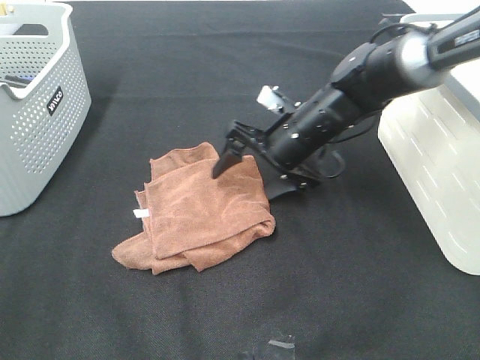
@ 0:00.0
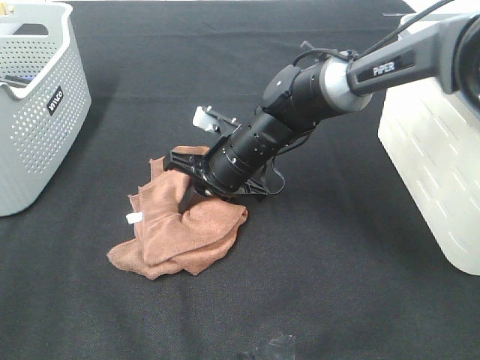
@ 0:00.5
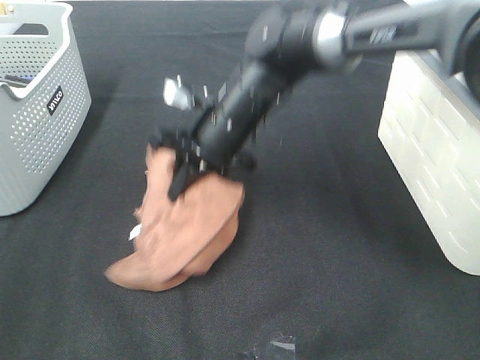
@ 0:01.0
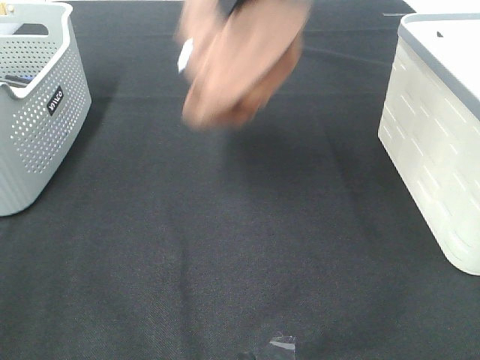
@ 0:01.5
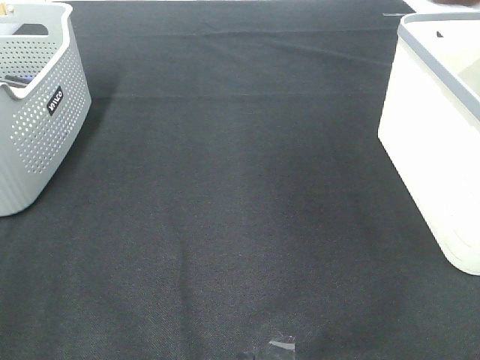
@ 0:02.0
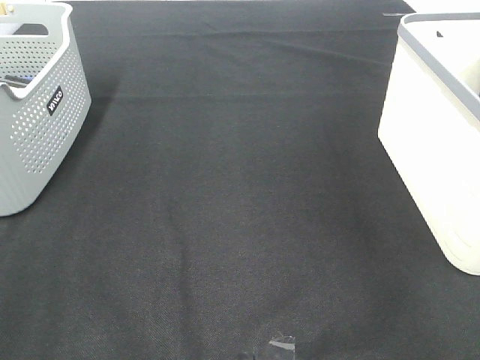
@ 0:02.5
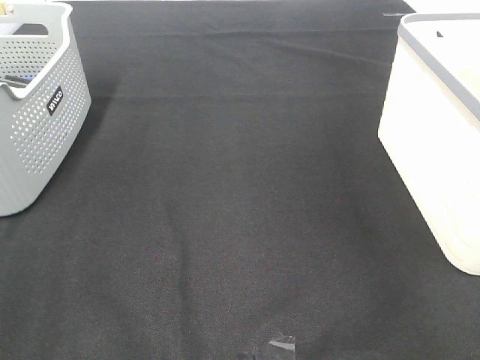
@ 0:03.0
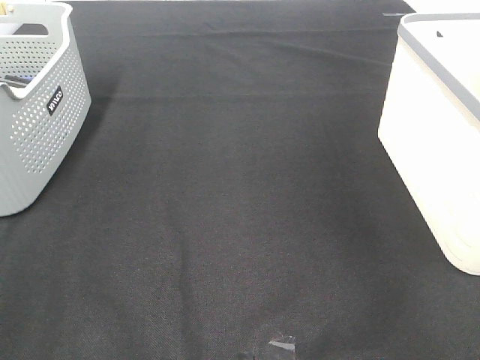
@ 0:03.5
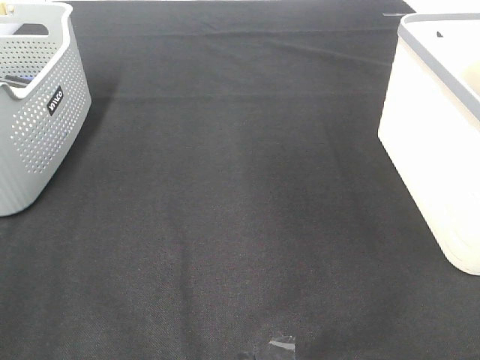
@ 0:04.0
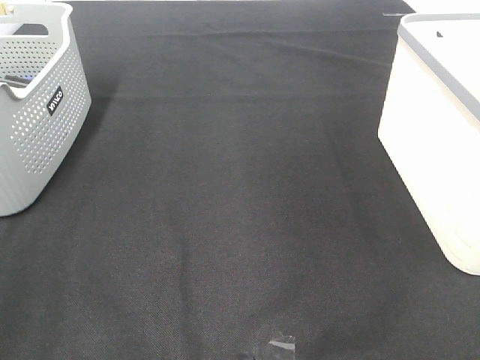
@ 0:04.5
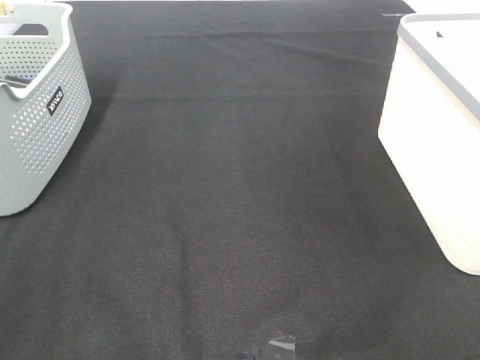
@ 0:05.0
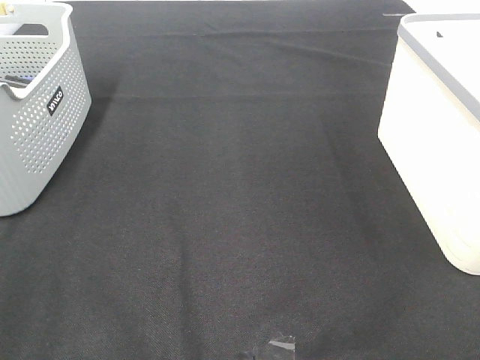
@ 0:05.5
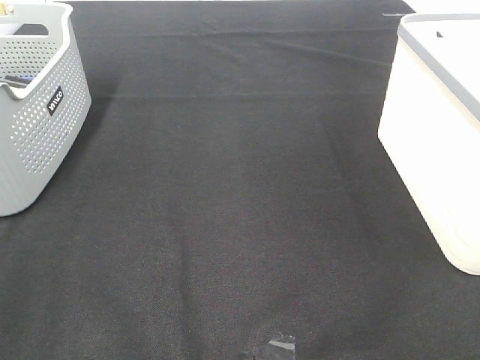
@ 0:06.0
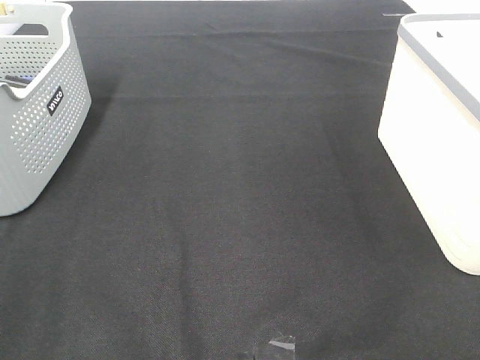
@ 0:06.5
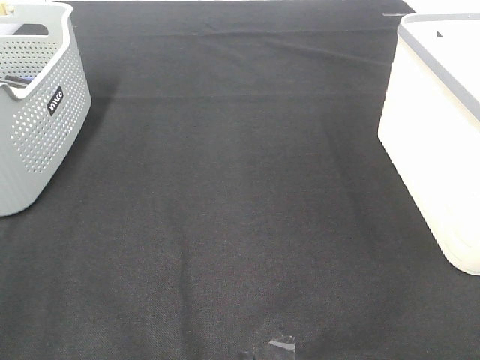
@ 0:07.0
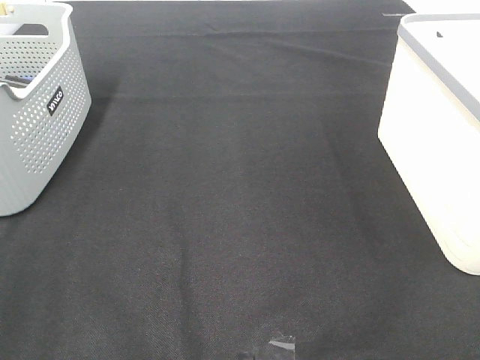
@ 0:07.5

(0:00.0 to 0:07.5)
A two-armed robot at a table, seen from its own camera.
Step, 0:01.0 - 0:03.0: Right hand: place the brown towel in right basket.
0:00.0 - 0:02.0: The right gripper is displaced upward and to the right by approximately 40 cm, and closes its fingers.

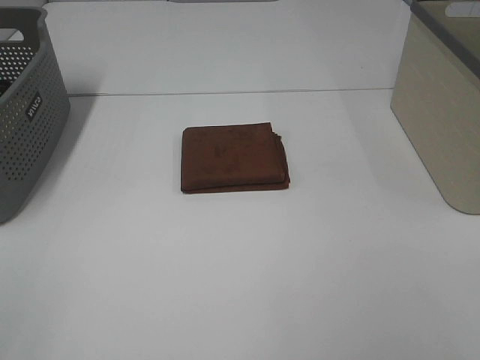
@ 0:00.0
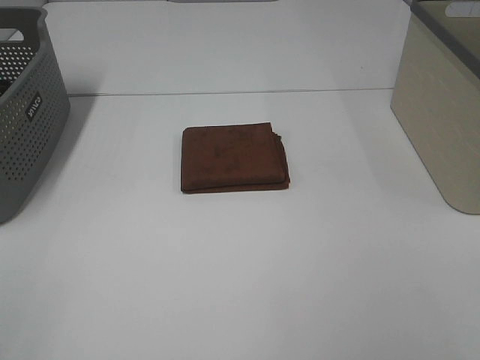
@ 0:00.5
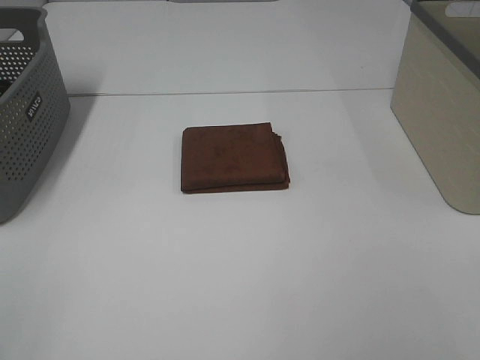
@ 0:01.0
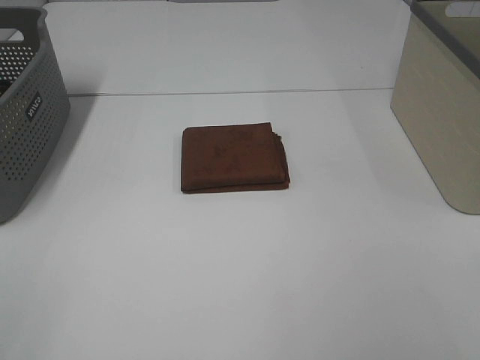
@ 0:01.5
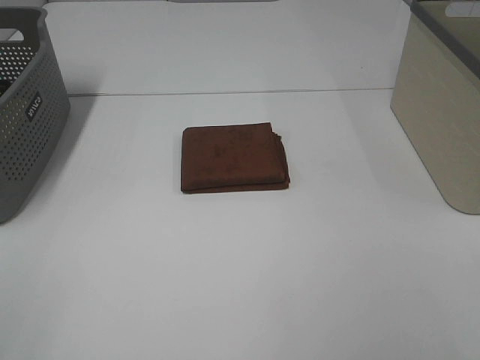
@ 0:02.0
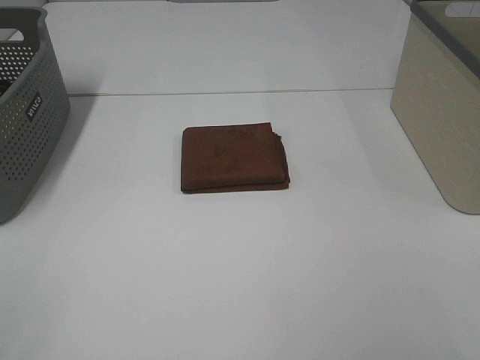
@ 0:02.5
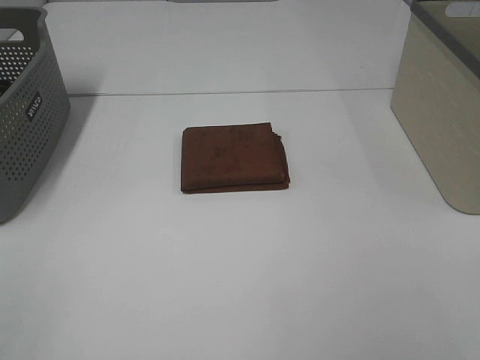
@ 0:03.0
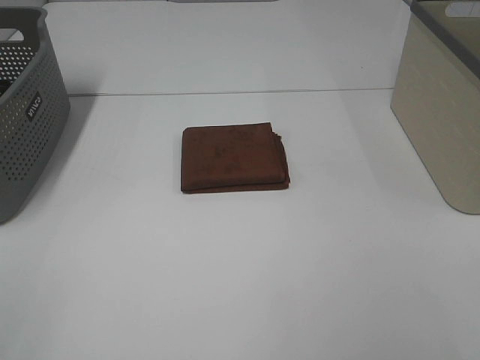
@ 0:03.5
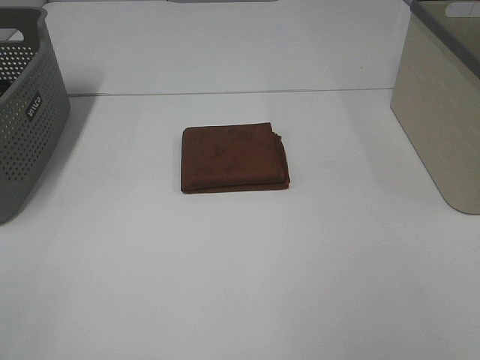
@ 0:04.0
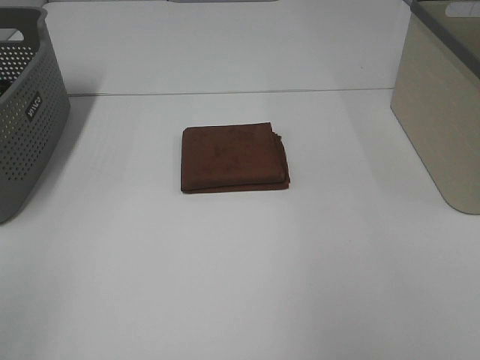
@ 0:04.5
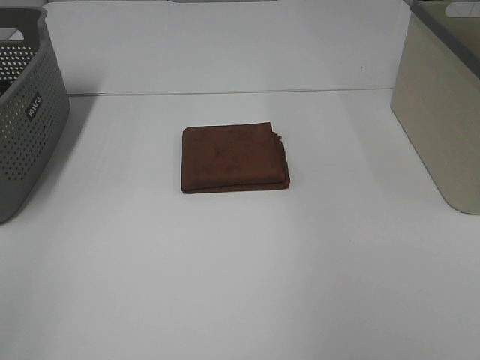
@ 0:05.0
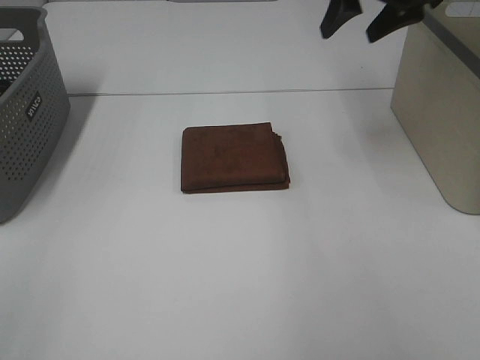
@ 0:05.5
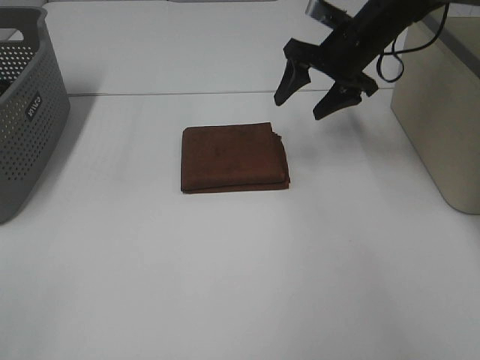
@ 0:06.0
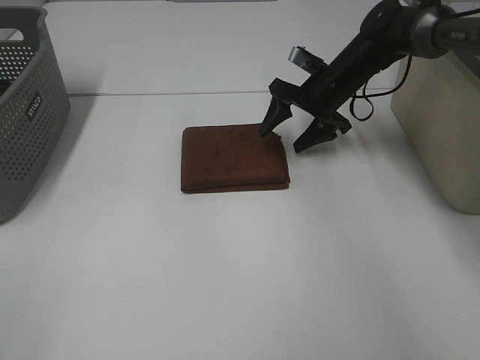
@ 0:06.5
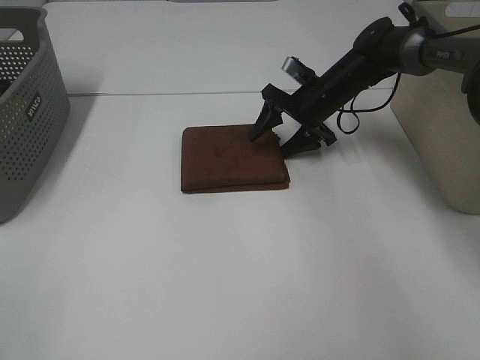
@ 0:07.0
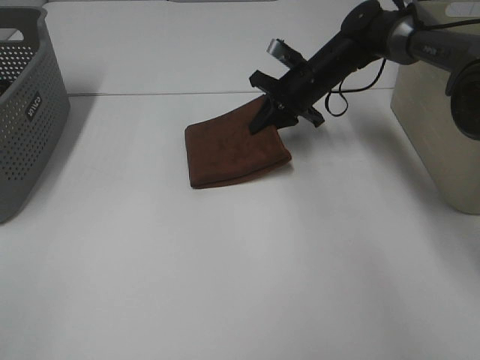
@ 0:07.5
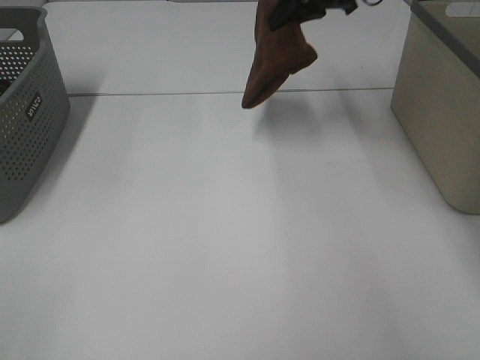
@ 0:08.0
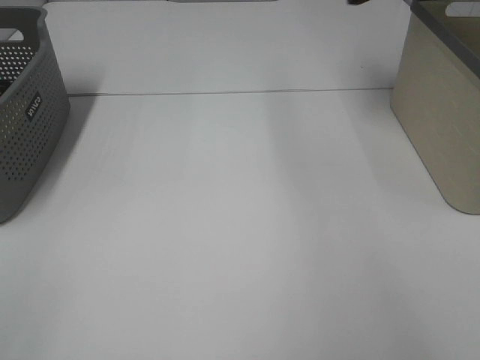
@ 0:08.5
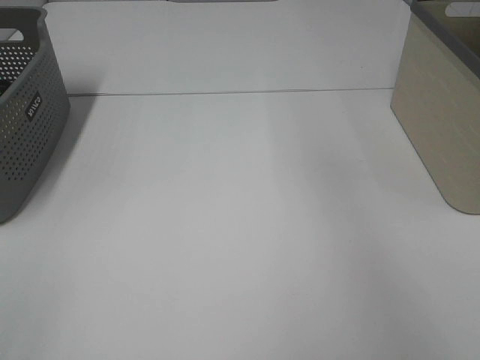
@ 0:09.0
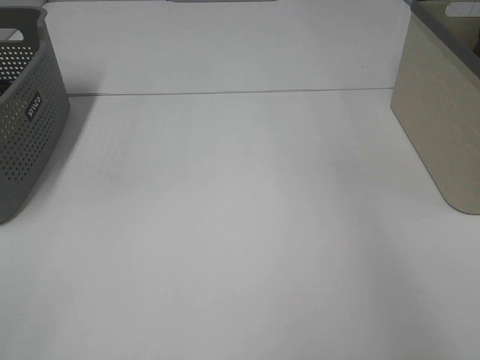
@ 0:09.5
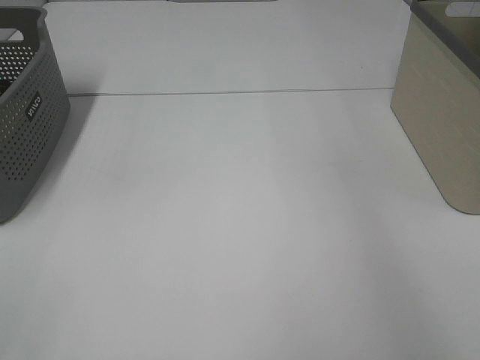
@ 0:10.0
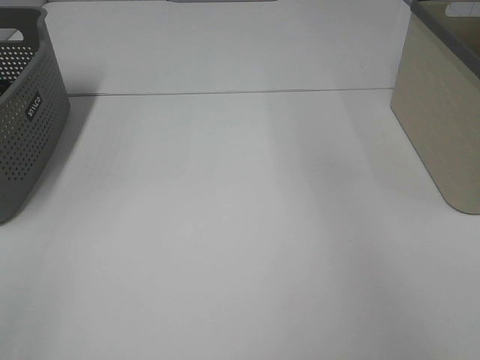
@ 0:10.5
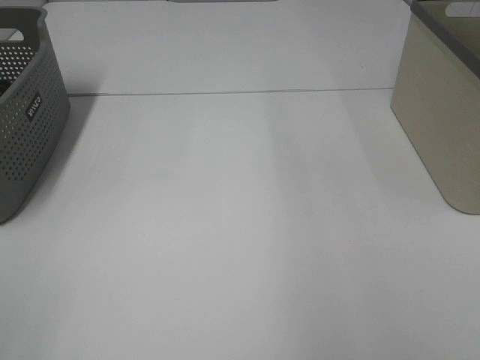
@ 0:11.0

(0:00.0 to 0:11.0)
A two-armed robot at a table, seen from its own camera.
Step, 0:00.0 - 0:07.0: Right hand: grab the folded brown towel.
Step, 0:07.5 - 0:09.5: Right hand: place the brown towel in right basket.
0:00.0 - 0:03.5: Both grippers stay put.
0:03.5 - 0:05.5: The right gripper goes roughly 50 cm forward.
0:05.5 - 0:07.5: The right gripper moves downward and to the left, roughly 20 cm, and closes up.
0:07.5 - 0:09.0: The right gripper is displaced upward and to the right by approximately 40 cm.

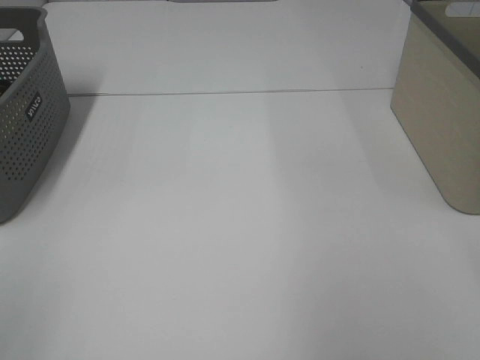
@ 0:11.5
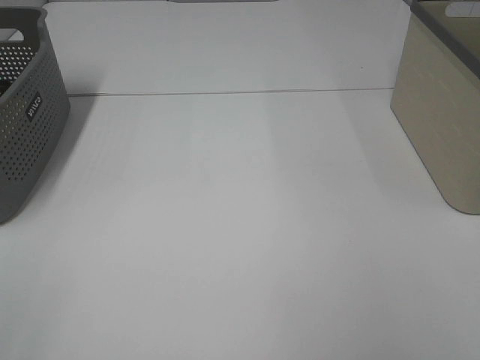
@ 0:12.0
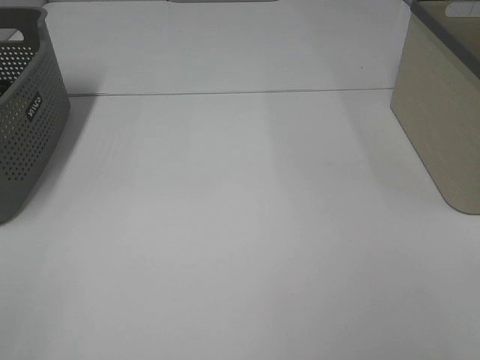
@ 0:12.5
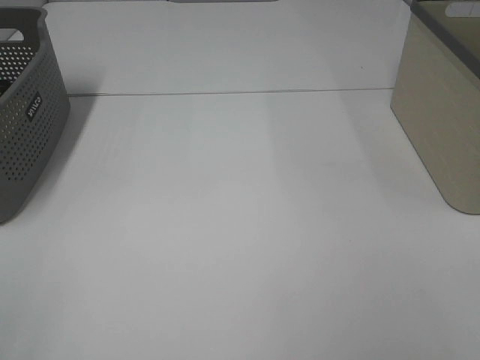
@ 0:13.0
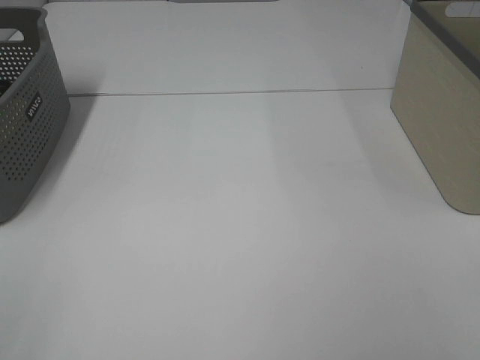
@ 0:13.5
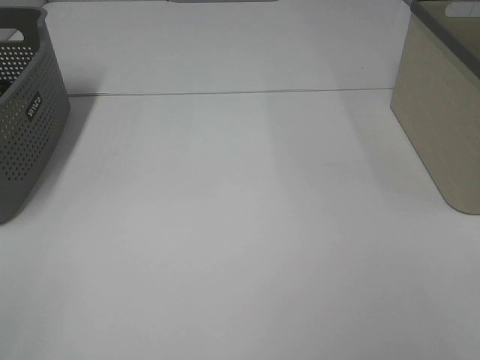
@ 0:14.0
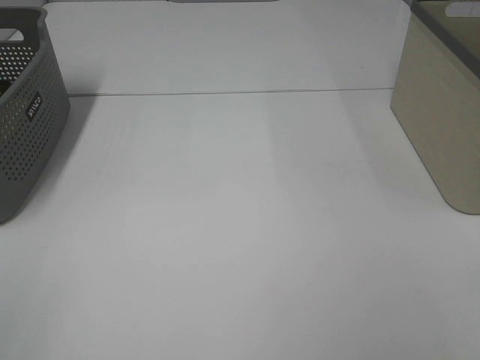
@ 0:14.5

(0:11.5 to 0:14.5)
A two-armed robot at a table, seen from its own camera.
0:13.0 - 0:14.5: The two grippers keep their place.

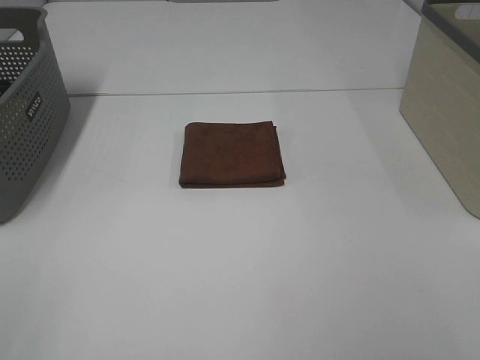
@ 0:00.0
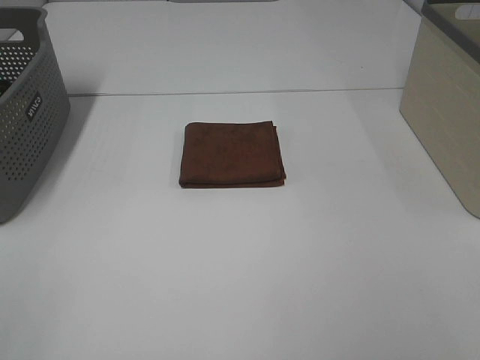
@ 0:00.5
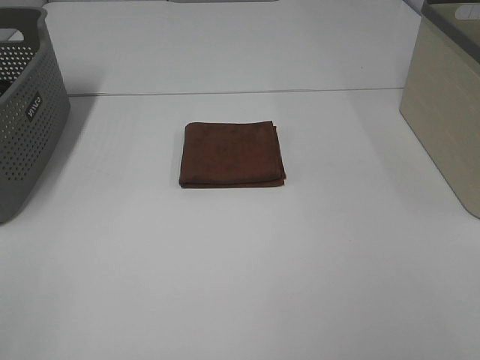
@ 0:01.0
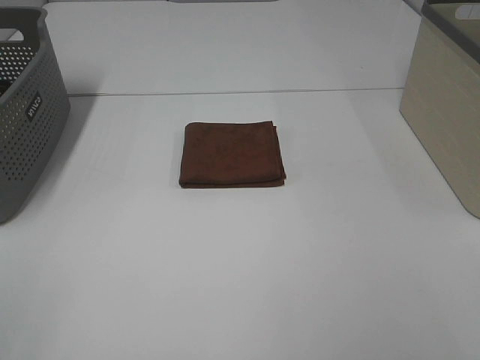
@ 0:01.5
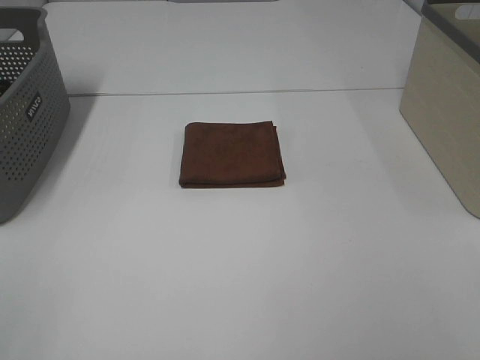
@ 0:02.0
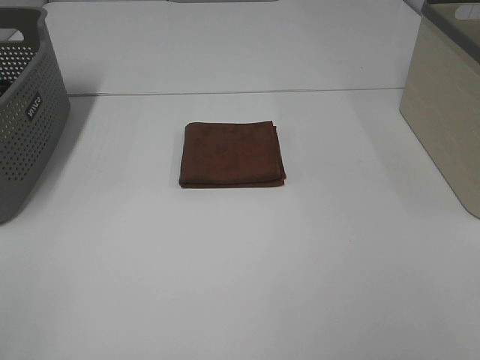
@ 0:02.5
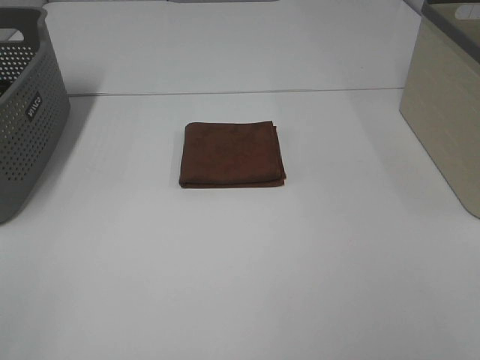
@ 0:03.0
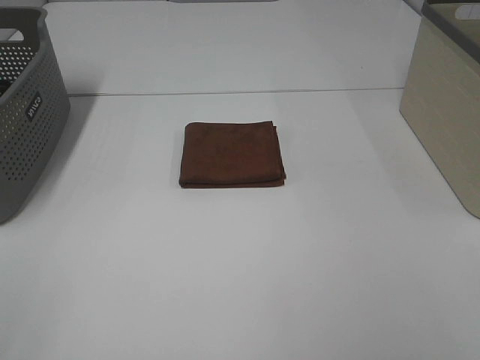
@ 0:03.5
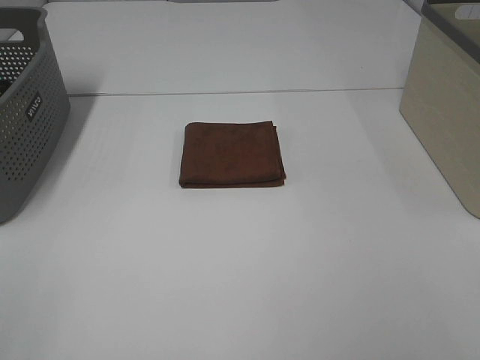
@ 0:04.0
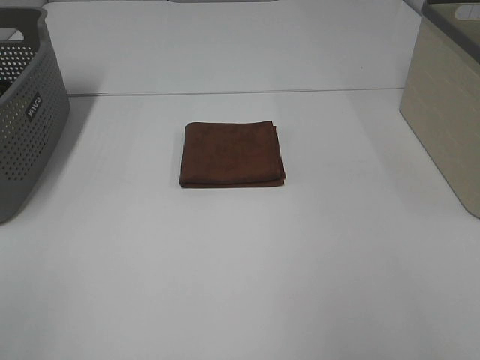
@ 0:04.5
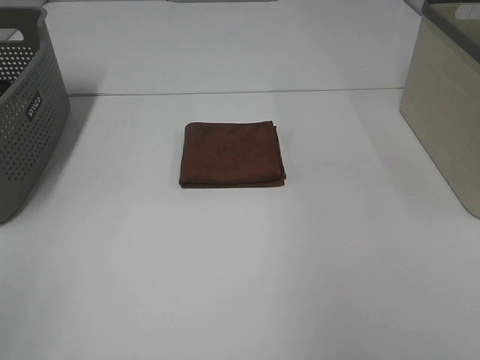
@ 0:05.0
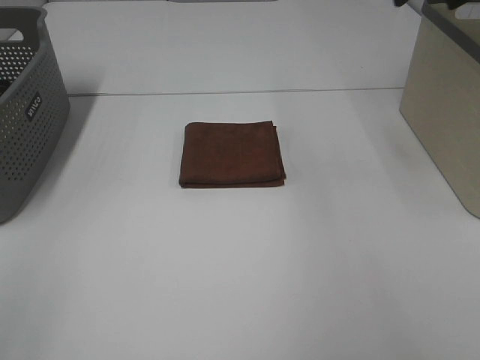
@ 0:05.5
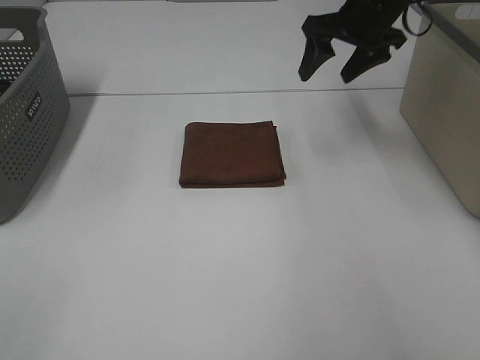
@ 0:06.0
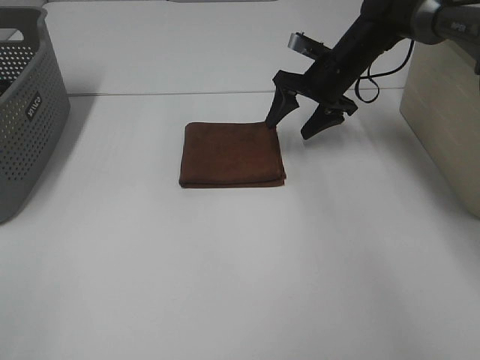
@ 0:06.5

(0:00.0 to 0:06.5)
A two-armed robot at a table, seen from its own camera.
0:00.0 - 0:02.0: Neither gripper changes place.
0:04.5 - 0:06.5: The right gripper shifts some 50 cm forward and downward.
